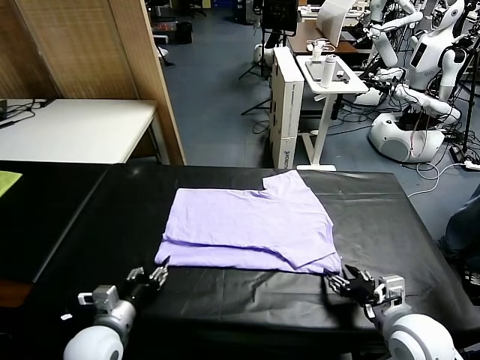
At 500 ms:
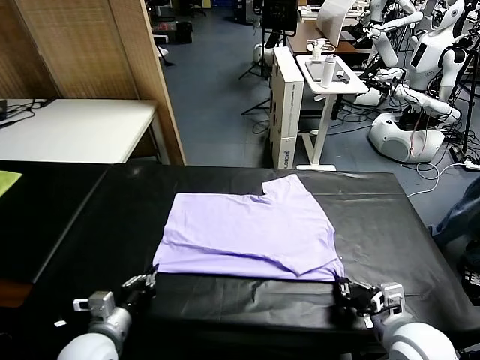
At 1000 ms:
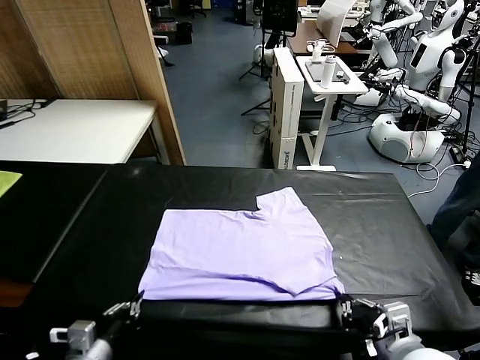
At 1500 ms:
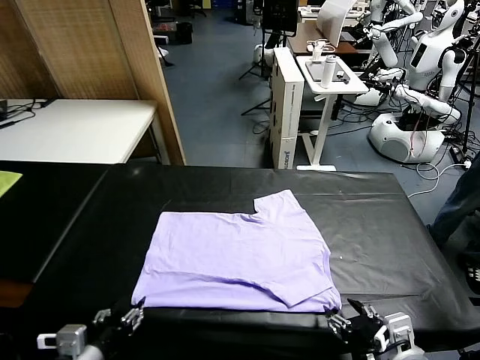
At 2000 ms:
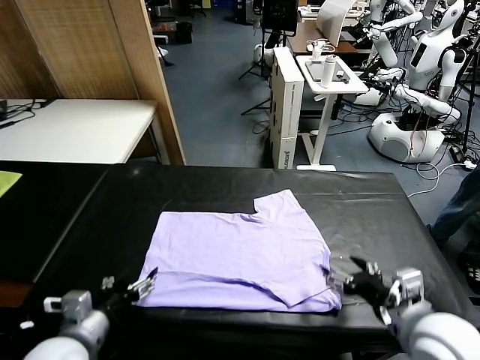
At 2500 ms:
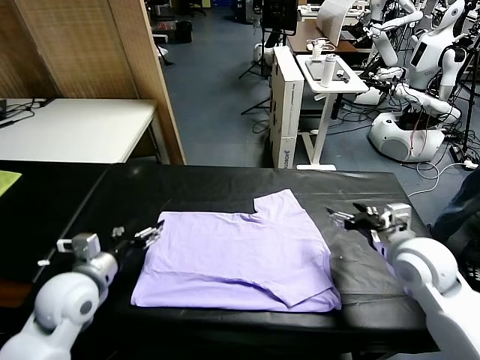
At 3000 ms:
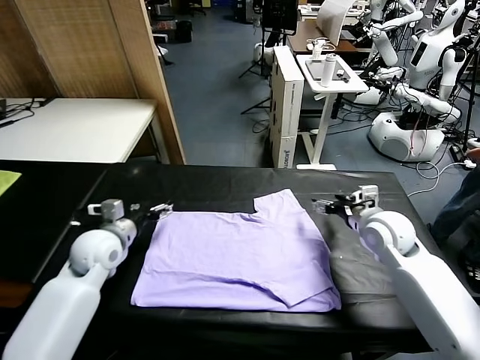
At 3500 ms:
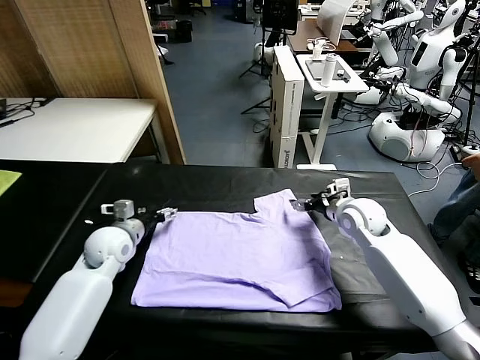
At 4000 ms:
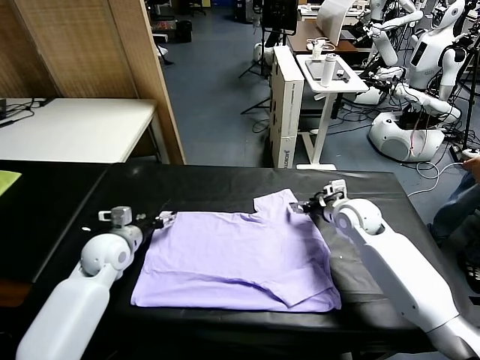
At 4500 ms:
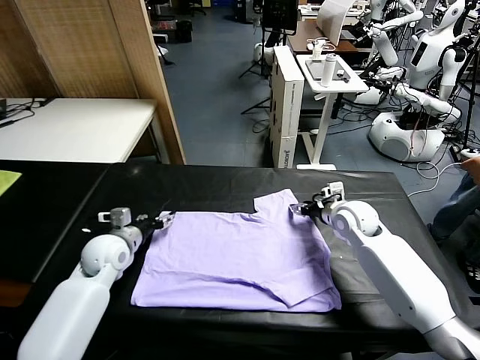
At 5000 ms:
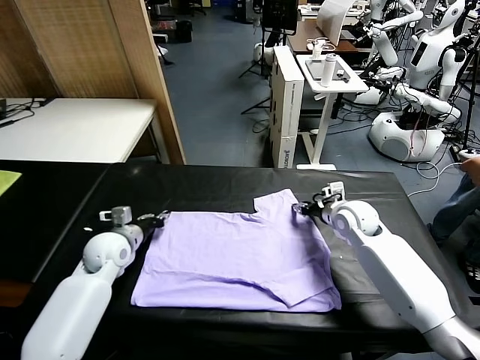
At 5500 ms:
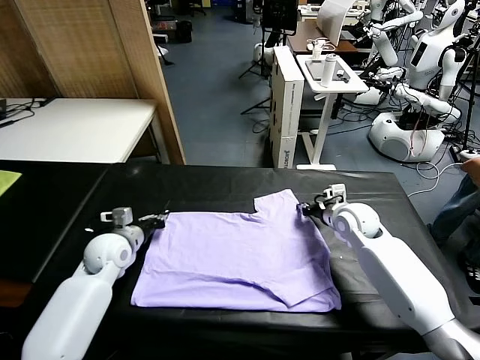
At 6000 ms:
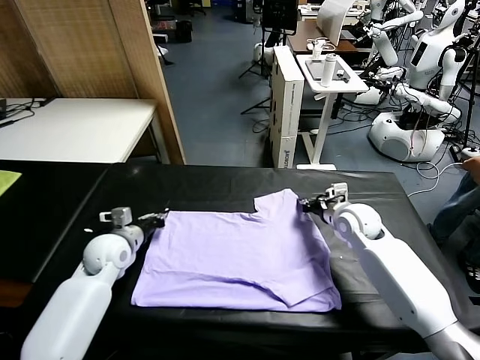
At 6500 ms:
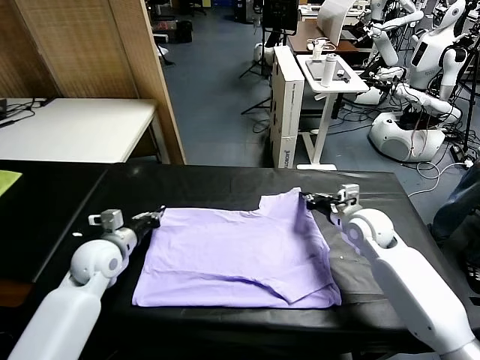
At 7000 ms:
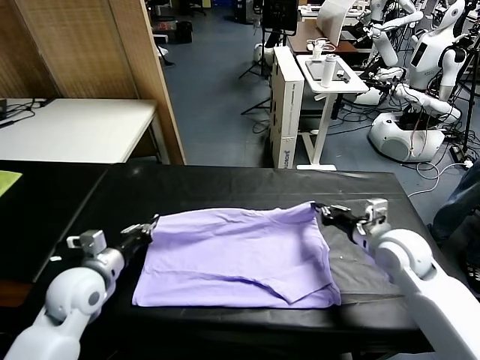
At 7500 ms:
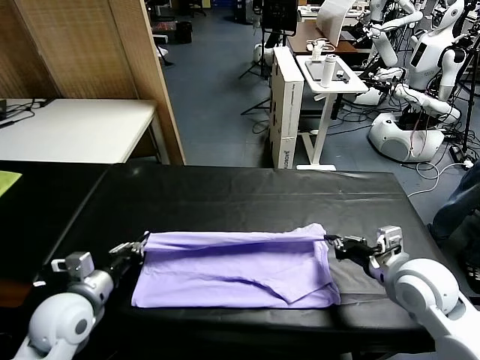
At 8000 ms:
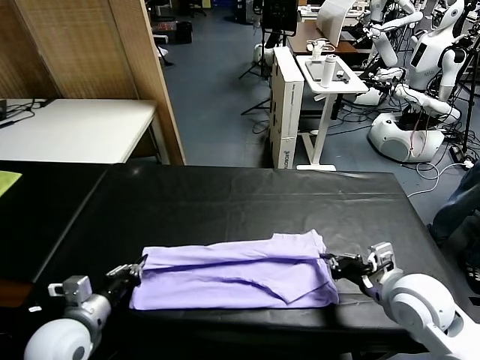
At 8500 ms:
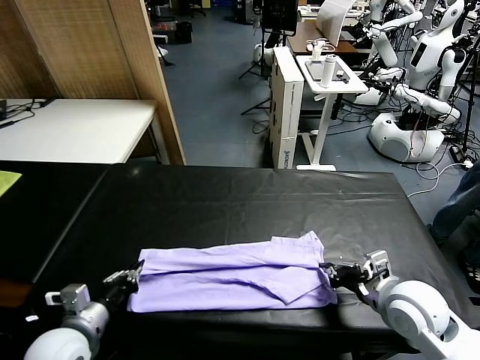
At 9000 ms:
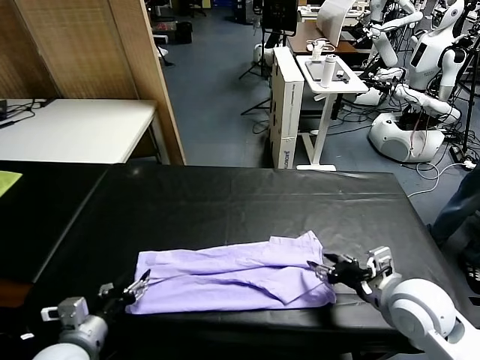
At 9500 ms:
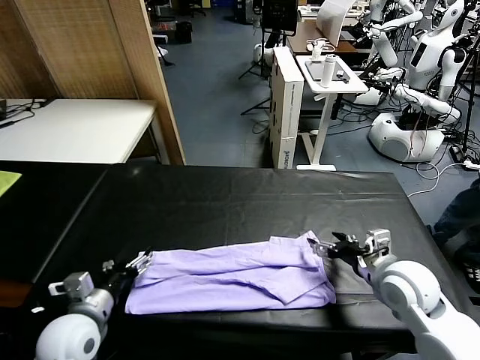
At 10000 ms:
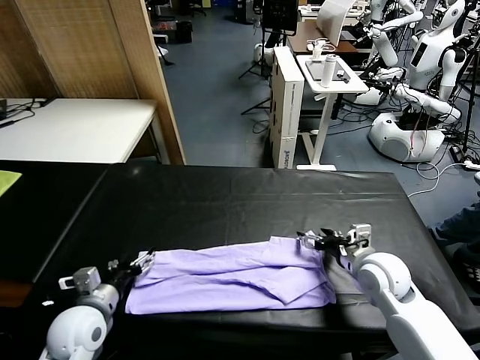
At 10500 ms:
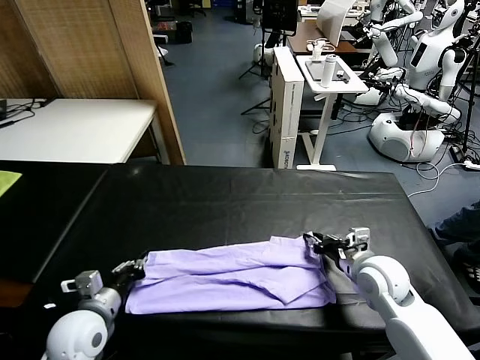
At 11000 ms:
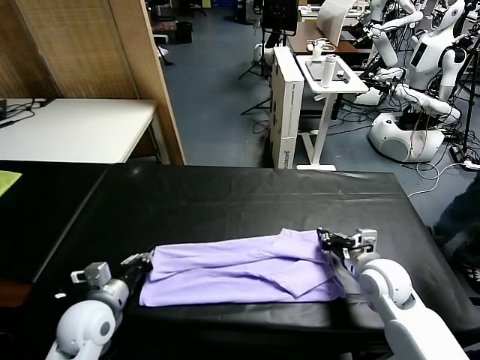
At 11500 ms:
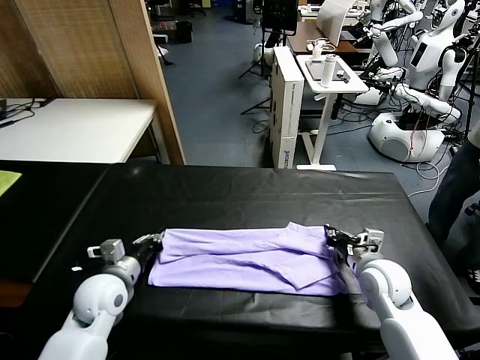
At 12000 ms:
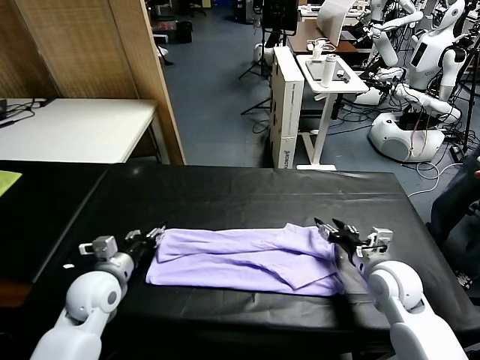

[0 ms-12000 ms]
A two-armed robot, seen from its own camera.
Task of the whole recording: fold and organize the clothes.
Step, 0 ms to 1500 ms: Drag the clothes downward with both gripper.
Step, 2000 ms to 5500 ms: use both grippers simultaneously to clamp the upper edge of the clothing fabric.
Step, 6500 ms to 9000 ms: use both grippers to drag the upper edge of the fabric backward and fold it over the lower edge.
0 ms to 2000 ms: The two grippers go about 10 cm upward. The left gripper goes backward and returns, approximately 10 cm each way, and opens up. Meanwhile the right gripper reaches approximately 10 cm backward, then returns, and opens.
2000 ms to 4000 ms: The grippers both shift forward by some 25 cm.
4000 ms to 6000 ms: The left gripper closes its fingers. Meanwhile the right gripper closes its fingers.
6000 ms to 8000 ms: The grippers both shift backward by roughly 20 cm.
8000 ms to 10000 ms: The left gripper shifts by about 5 cm, and opens its fingers. Meanwhile the right gripper shifts about 10 cm forward, and opens its fingers.
10000 ms to 12000 ms: The left gripper heads forward, covering about 5 cm, and closes and opens again. The right gripper closes and opens again.

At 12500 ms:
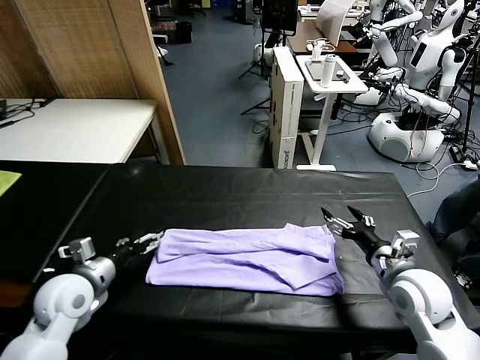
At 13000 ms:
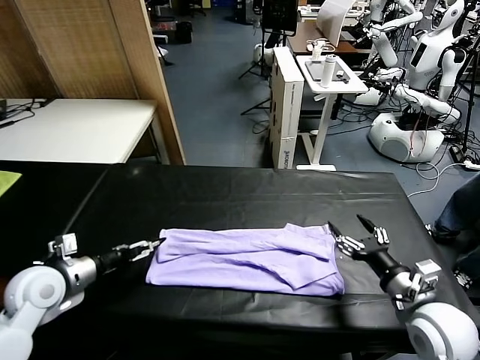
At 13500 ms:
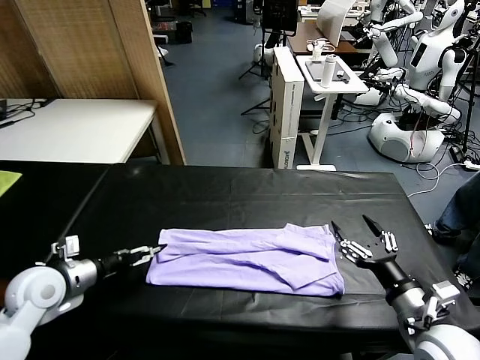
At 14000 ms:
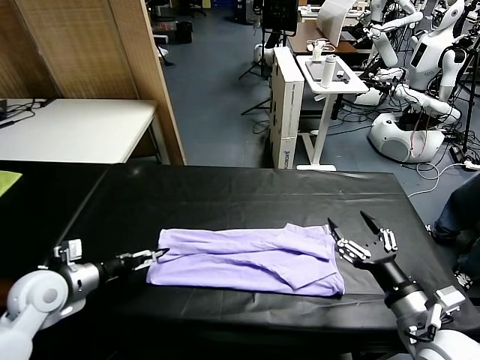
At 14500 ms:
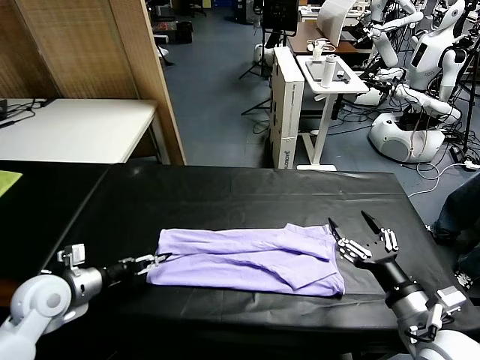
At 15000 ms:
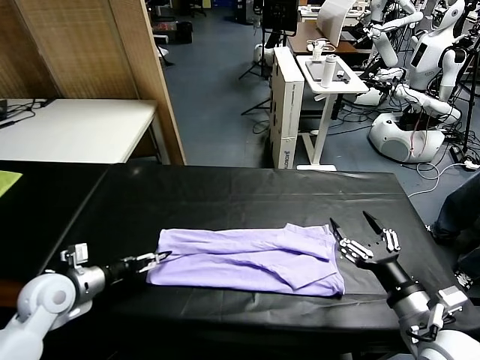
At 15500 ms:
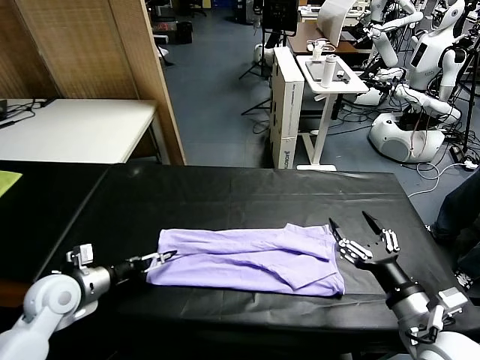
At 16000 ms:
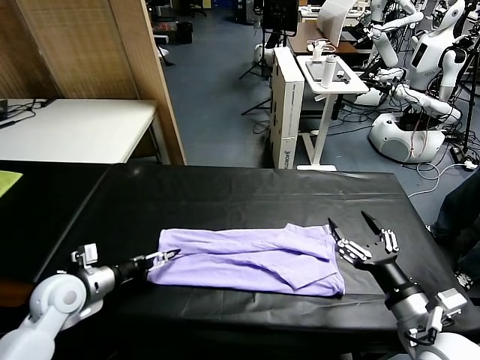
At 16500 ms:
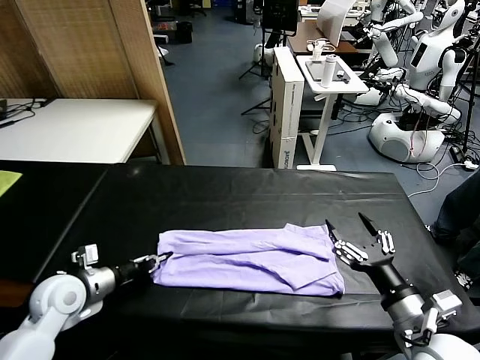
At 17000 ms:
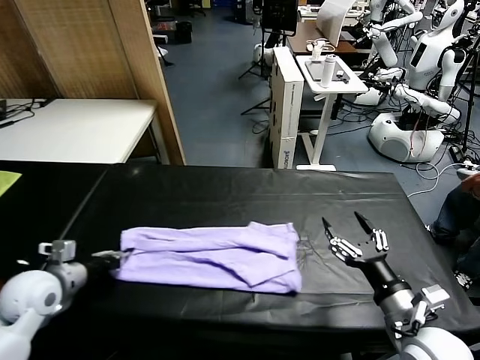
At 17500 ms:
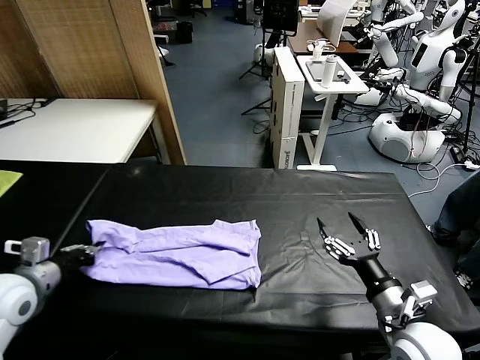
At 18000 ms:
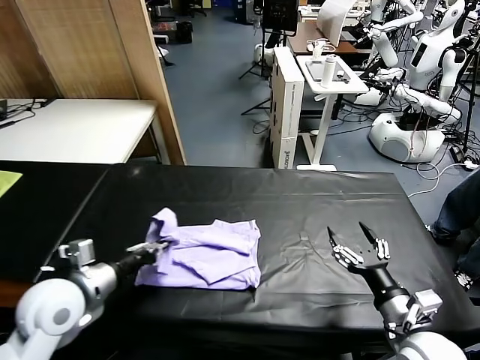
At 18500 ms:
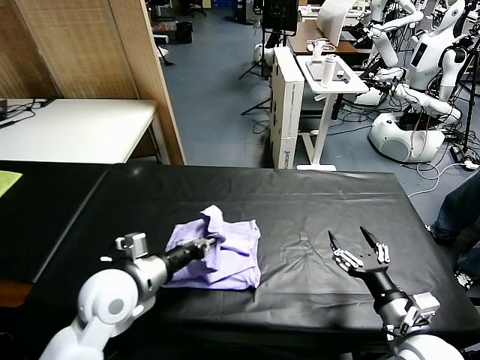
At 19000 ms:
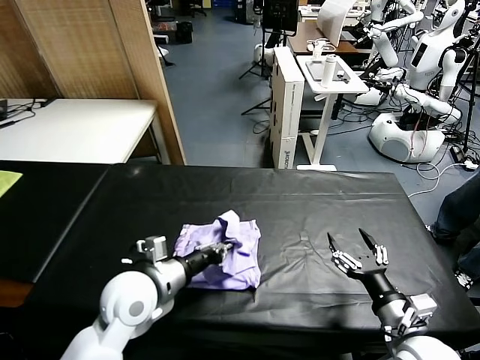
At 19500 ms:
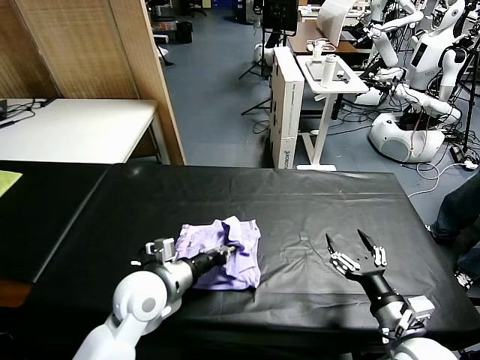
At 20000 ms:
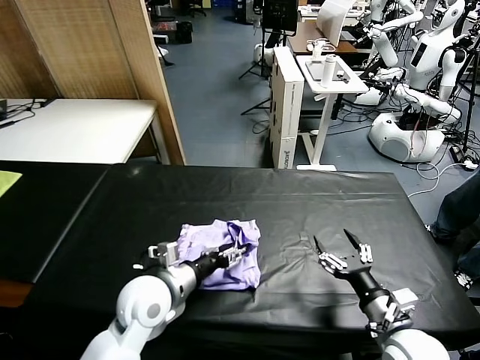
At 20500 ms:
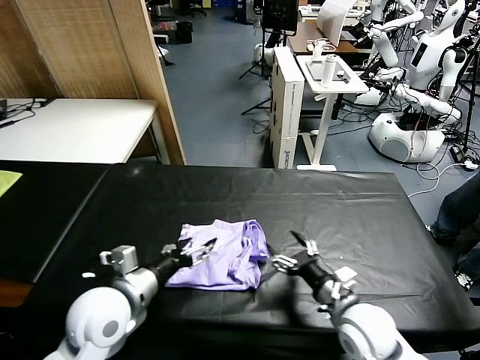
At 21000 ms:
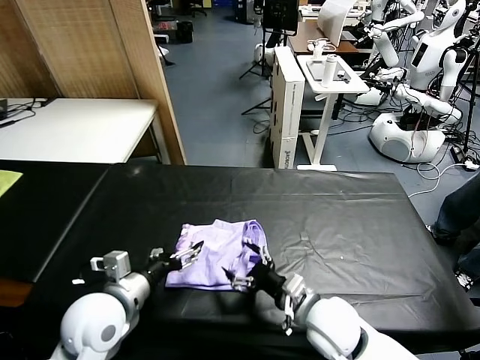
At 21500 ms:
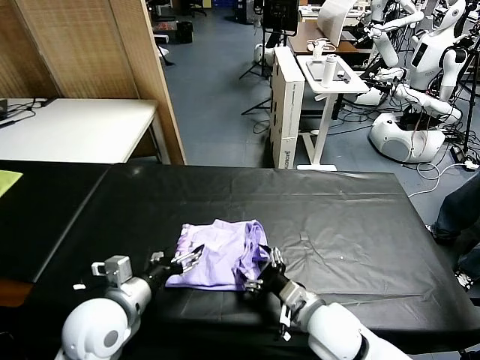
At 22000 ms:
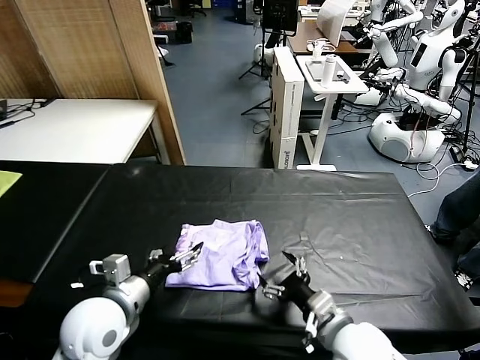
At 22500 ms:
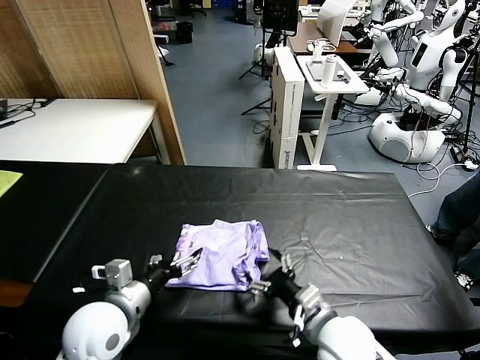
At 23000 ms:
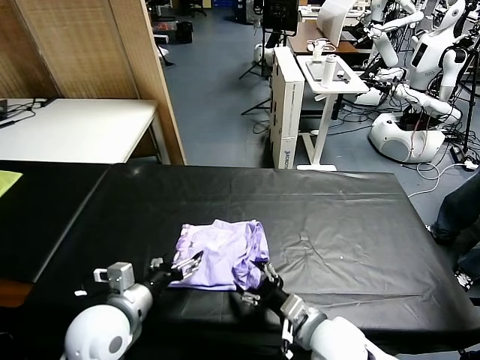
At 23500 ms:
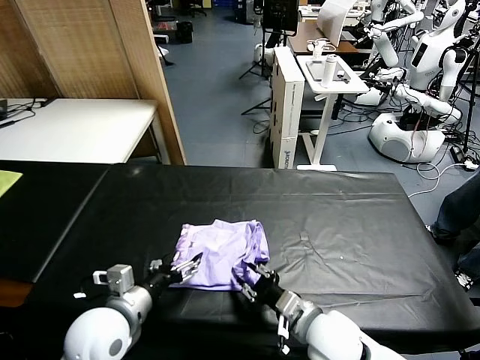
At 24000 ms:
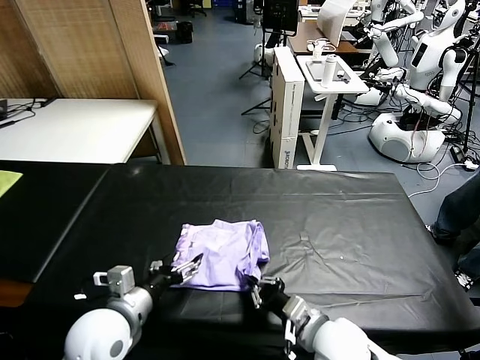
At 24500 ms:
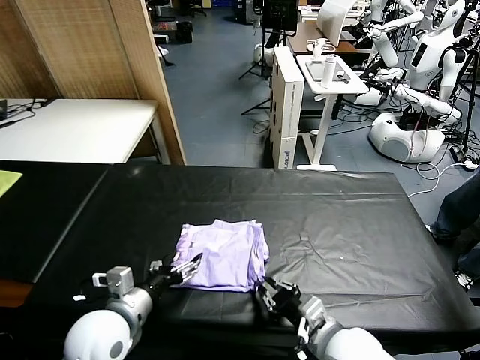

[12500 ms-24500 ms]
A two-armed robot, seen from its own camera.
Task of the whole recording: fold and organize the clothes.
Step, 12500 ms to 16500 ms: use the left gripper to clamp the left edge of the fabric.
Step, 17000 ms to 20000 ms: use the left gripper to drag the left edge of the fabric to the left and folds it over the right edge.
12500 ms to 14500 ms: The right gripper moves backward, approximately 10 cm.
14500 ms to 16500 ms: The left gripper closes its fingers.
16500 ms to 18500 ms: The left gripper goes roughly 15 cm to the right and upward.
18500 ms to 20500 ms: The left gripper opens its fingers. Meanwhile the right gripper is displaced to the left and forward by approximately 10 cm.
20500 ms to 22500 ms: The right gripper changes place by roughly 5 cm.
22500 ms to 24500 ms: The right gripper closes up.

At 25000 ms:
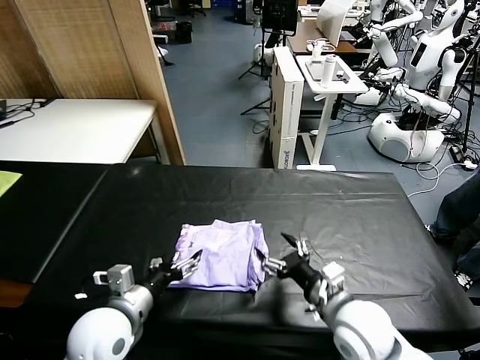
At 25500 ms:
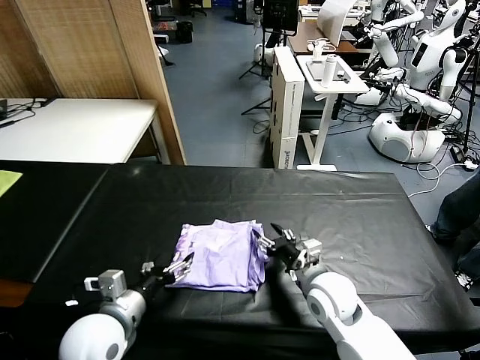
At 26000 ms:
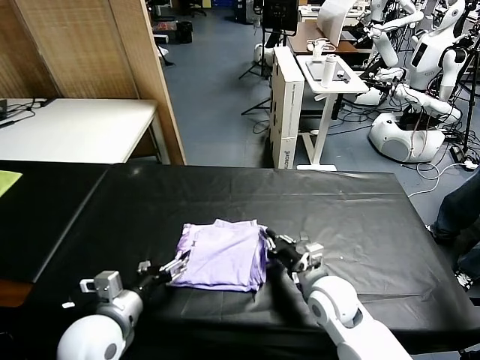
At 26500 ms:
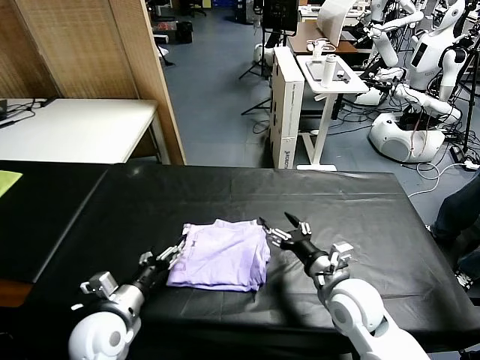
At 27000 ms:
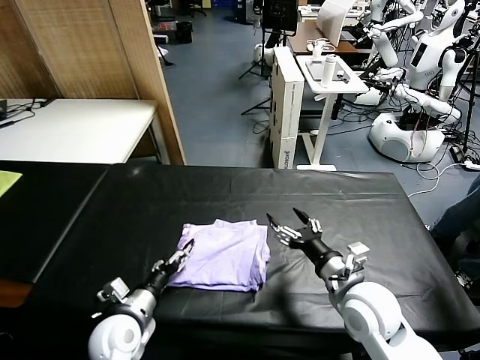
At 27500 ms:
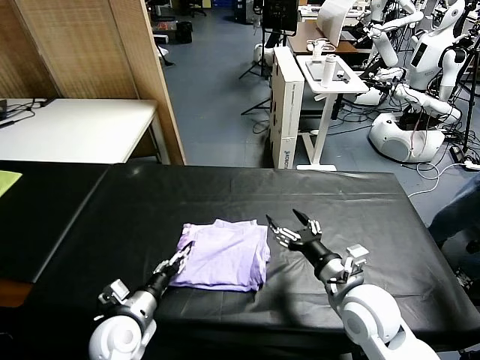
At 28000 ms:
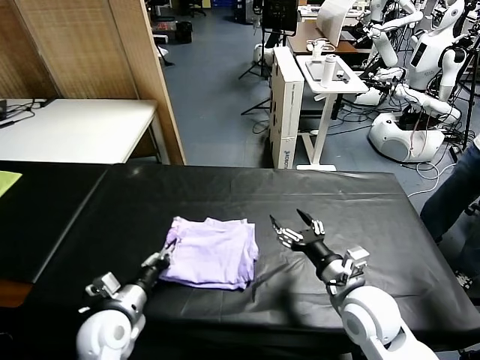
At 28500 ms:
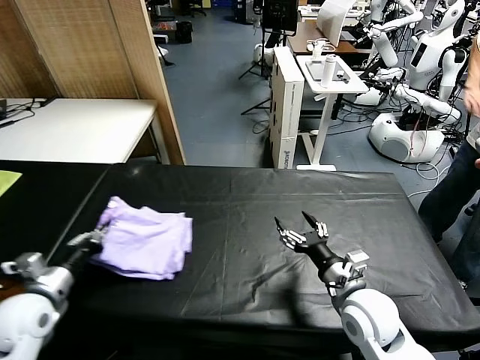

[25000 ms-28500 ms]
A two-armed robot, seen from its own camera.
Task of the whole recording: fold and organize the clothes.
25000 ms to 27000 ms: The left gripper travels downward by approximately 10 cm; the right gripper closes, then reopens.
27000 ms to 28500 ms: The left gripper travels to the left and upward by about 15 cm, and closes.
